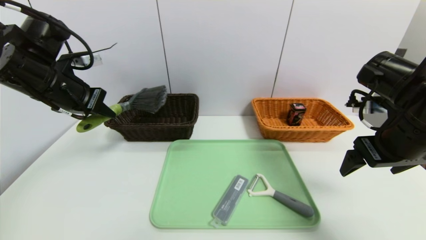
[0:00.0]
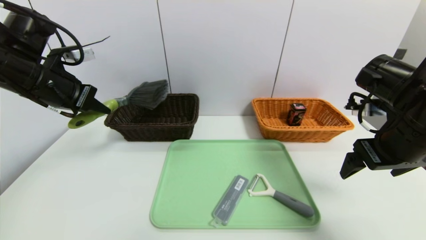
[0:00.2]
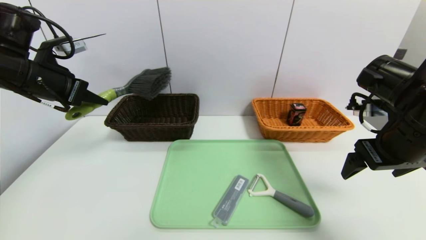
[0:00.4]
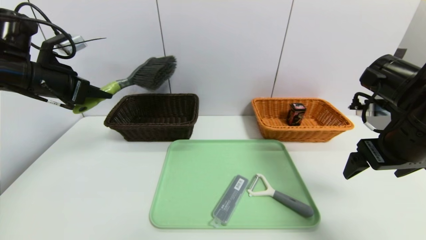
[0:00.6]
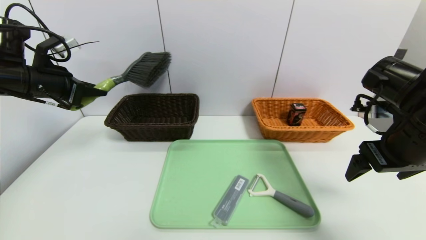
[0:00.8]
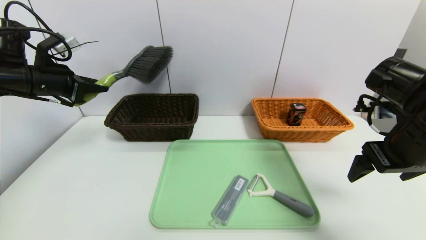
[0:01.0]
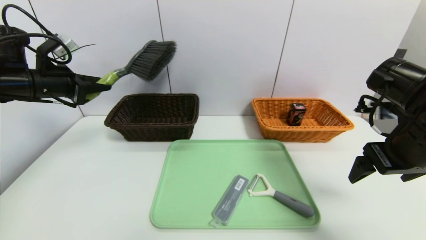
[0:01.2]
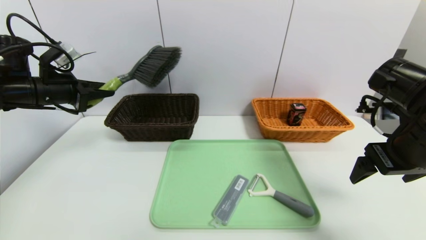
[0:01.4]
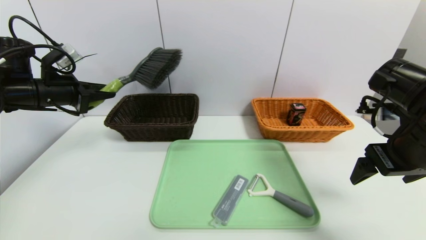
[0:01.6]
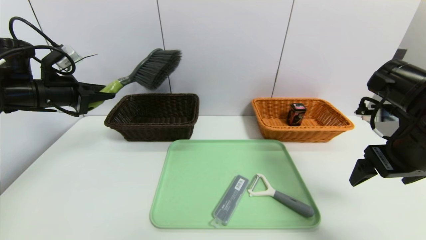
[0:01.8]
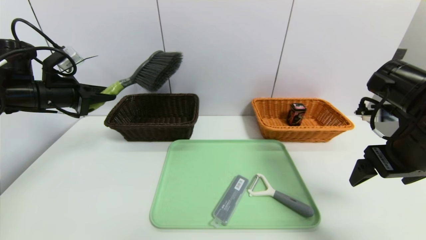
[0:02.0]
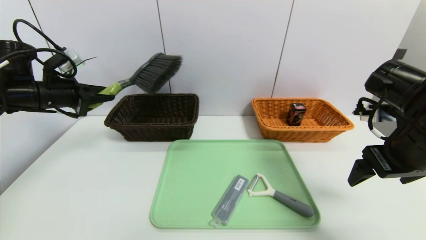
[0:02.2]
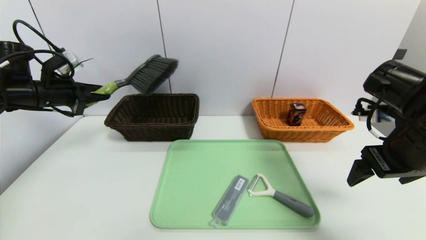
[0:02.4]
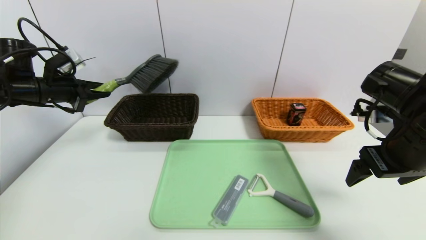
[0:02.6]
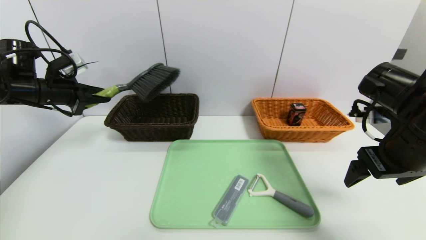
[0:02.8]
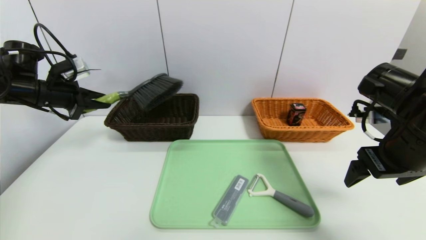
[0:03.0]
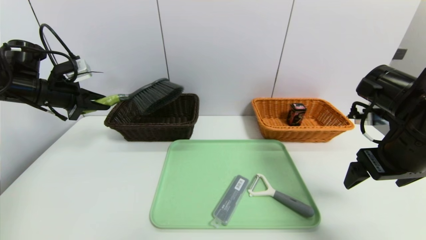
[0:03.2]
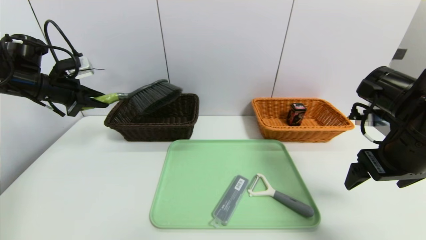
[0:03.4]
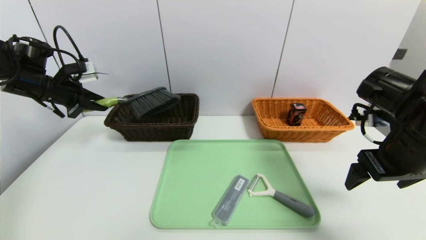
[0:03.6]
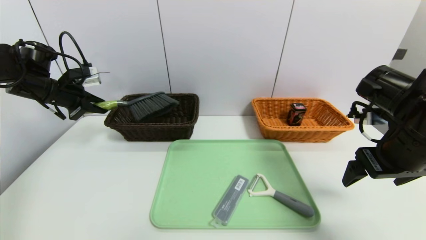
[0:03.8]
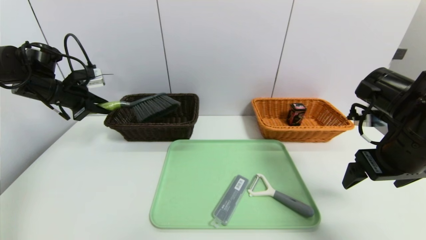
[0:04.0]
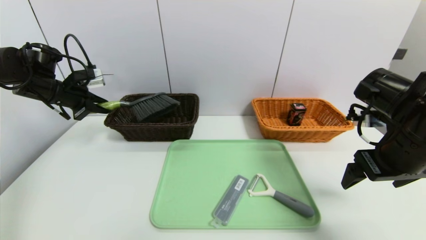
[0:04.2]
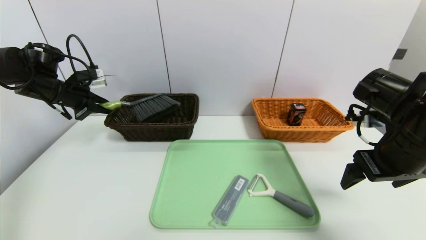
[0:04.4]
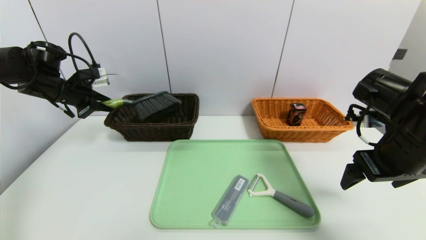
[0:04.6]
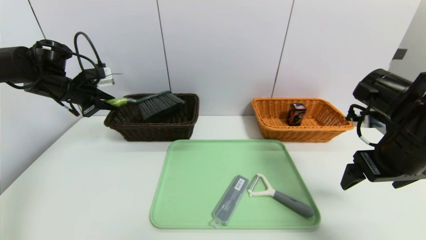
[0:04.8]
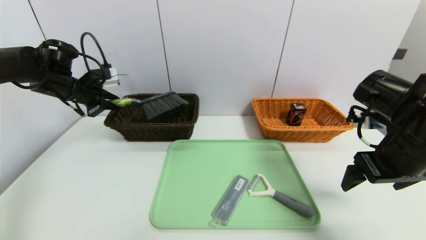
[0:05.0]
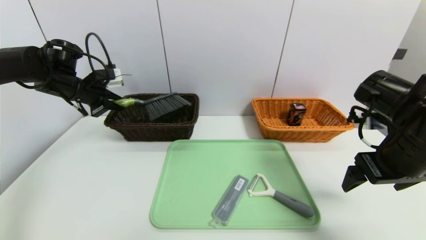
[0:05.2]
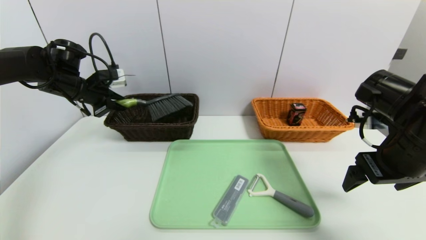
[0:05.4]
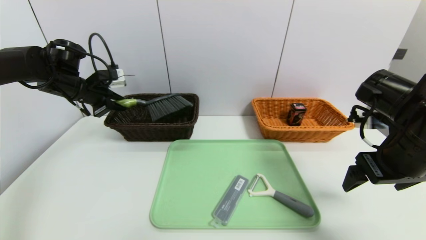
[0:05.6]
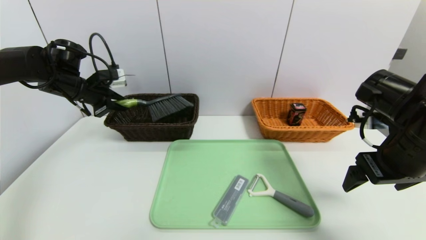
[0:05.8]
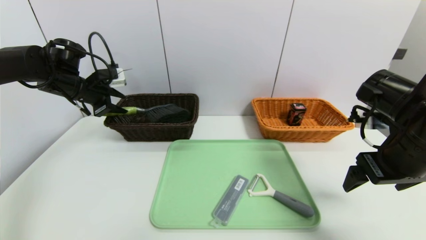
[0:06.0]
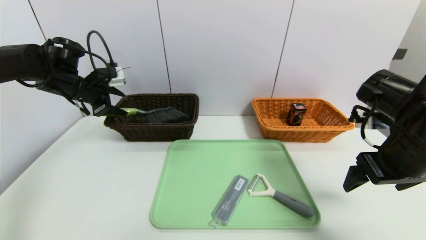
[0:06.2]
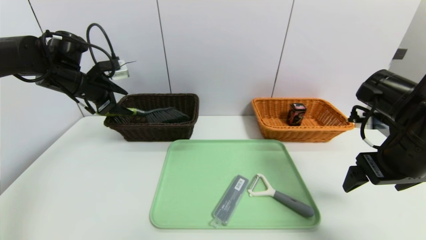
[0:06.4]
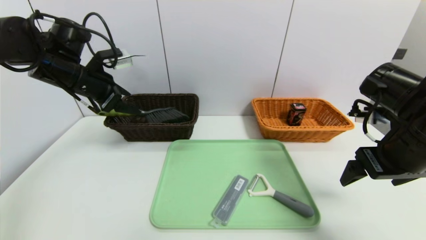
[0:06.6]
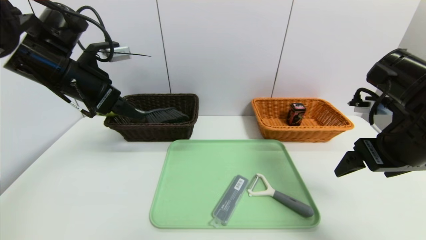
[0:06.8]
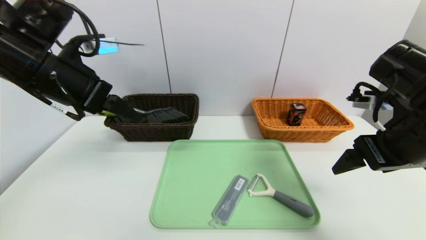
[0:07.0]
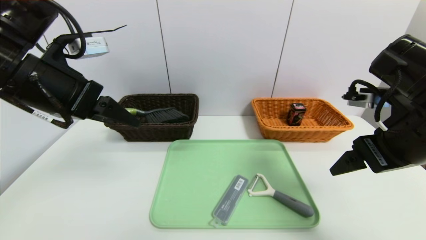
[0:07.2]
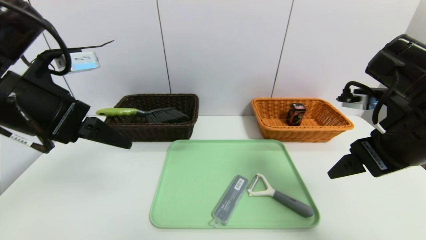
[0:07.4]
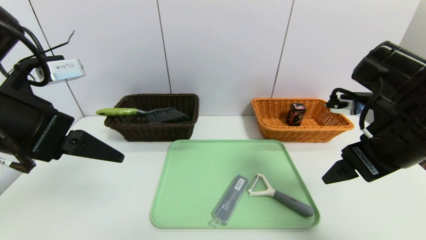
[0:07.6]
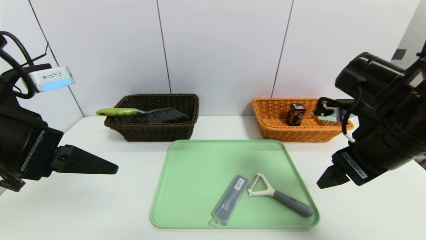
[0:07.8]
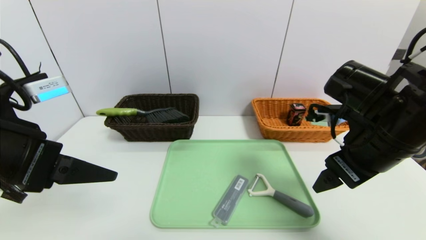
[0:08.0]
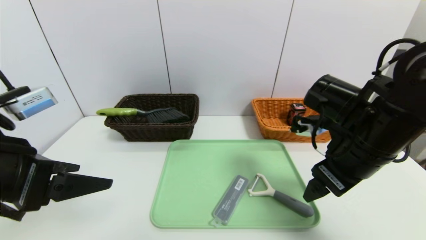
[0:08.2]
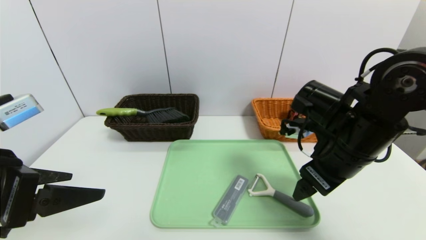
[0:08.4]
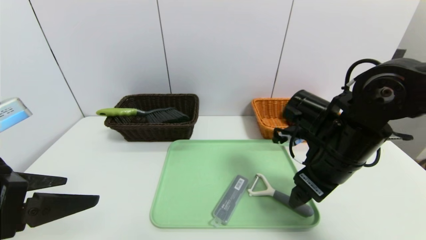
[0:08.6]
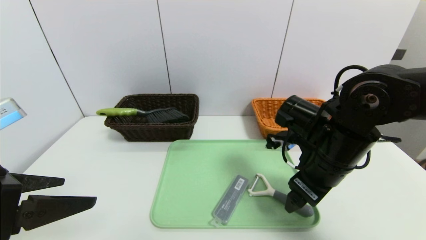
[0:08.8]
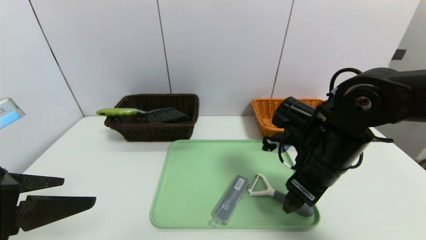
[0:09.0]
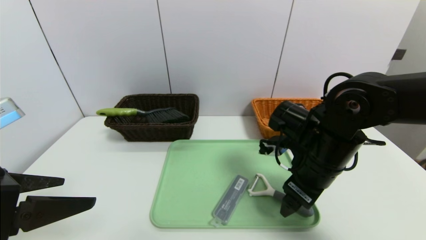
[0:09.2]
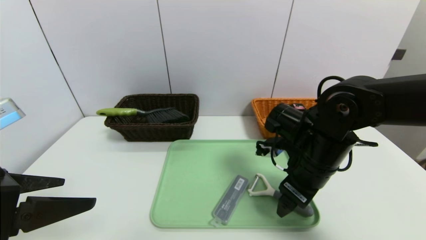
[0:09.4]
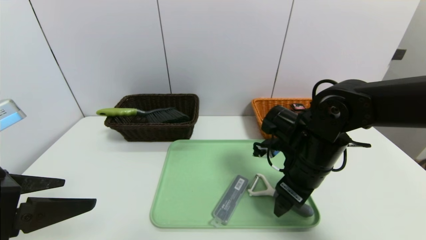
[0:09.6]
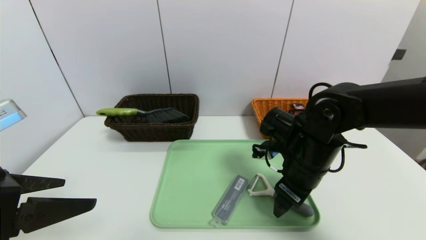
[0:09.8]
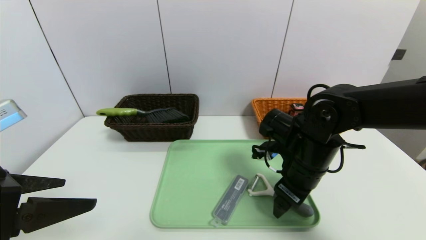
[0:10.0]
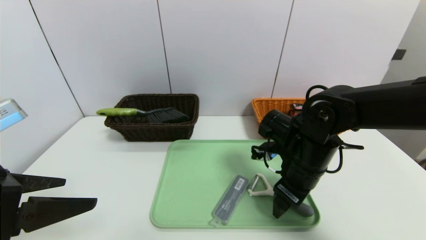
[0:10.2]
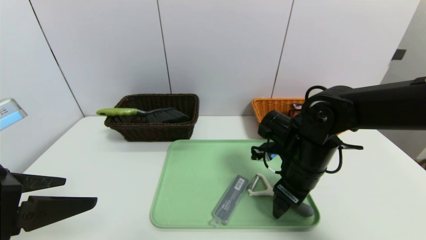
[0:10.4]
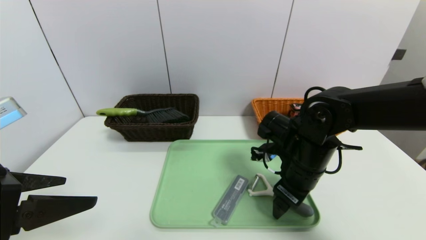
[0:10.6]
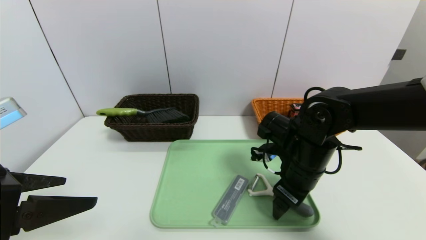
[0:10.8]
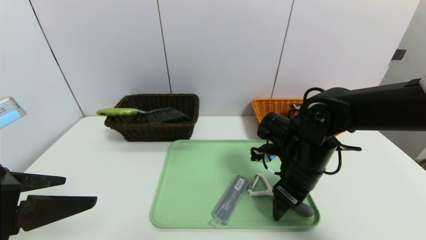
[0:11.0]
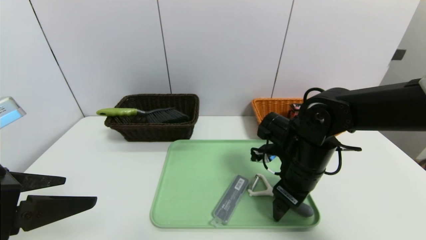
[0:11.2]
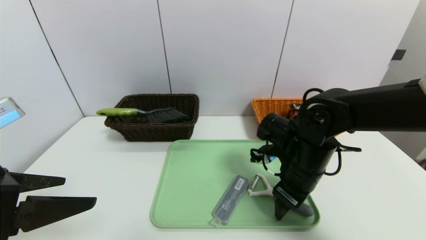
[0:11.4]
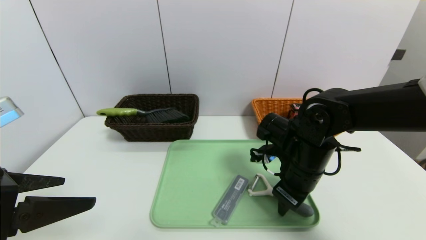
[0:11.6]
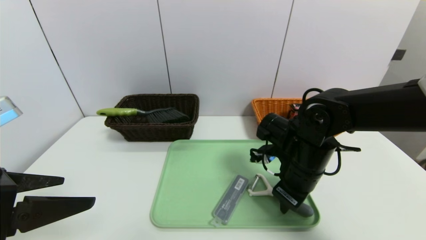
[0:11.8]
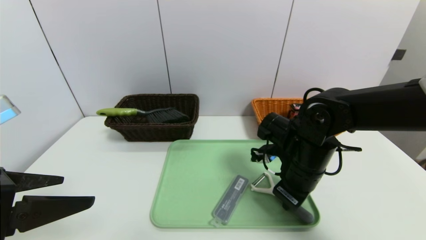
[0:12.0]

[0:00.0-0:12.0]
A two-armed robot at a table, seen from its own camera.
Task of the whole recording: place the food in the right basket with the right gripper, and place the non food items in the left basket with the left gripper.
Step, 0:00.0 to 0:06.6: Grasp the brush and put it in the left basket.
0:00.0 to 0:01.6: The left gripper heads to the left, covering approximately 5 cm.
0:01.6 to 0:03.0: The grippers make only small movements.
0:03.0 to 0:04.4: The grippers move only a little.
0:04.4 to 0:06.0: The left gripper opens up.
0:06.0 to 0:07.6: The left gripper is displaced backward by some 25 cm, and opens. Meanwhile the right gripper shifts by about 5 cm.
0:07.6 to 0:09.0: The right gripper moves downward and to the left, roughly 10 cm. The left gripper shifts some 10 cm backward.
0:09.0 to 0:10.4: The grippers make only small movements.
0:10.4 to 0:12.0: The right gripper closes.

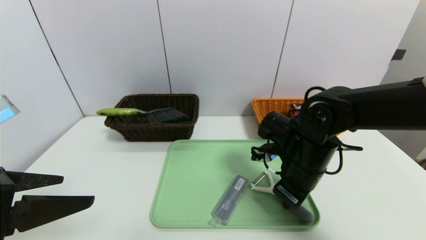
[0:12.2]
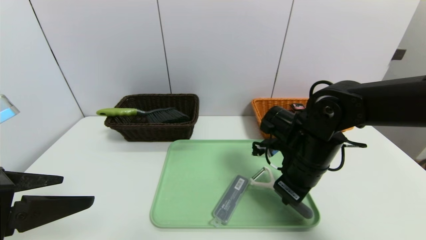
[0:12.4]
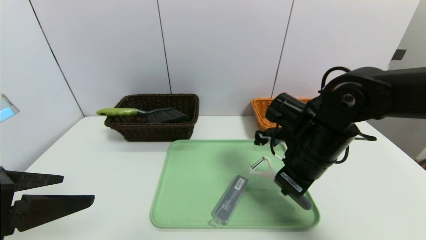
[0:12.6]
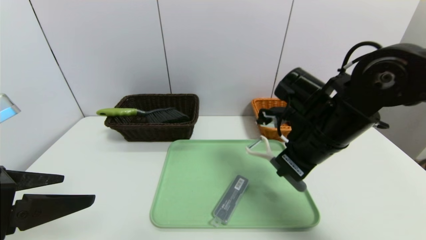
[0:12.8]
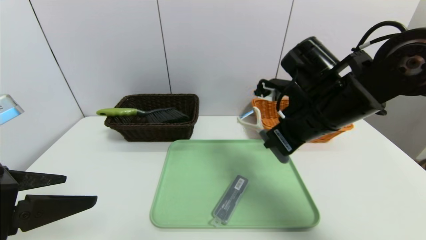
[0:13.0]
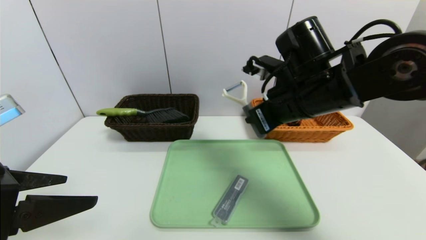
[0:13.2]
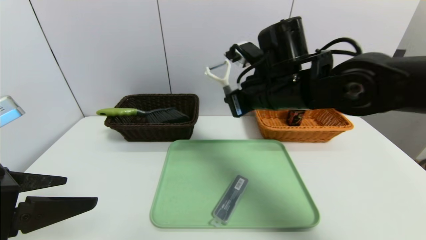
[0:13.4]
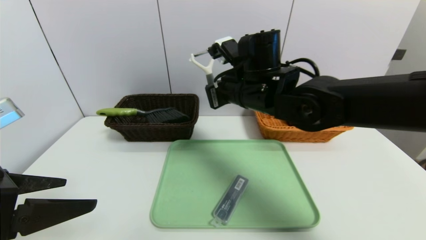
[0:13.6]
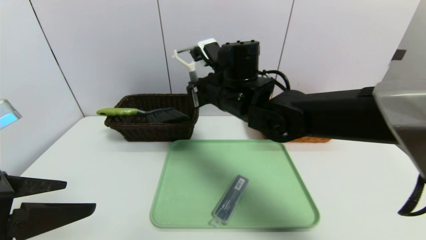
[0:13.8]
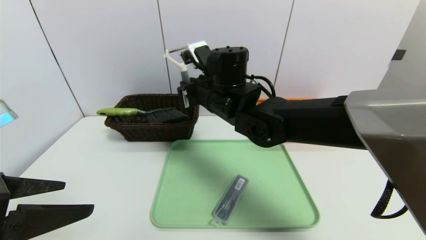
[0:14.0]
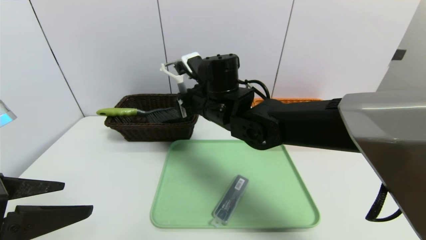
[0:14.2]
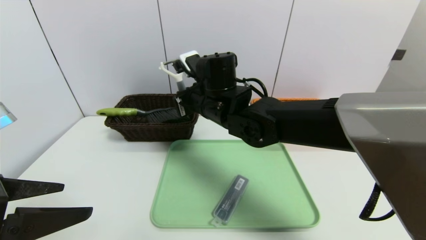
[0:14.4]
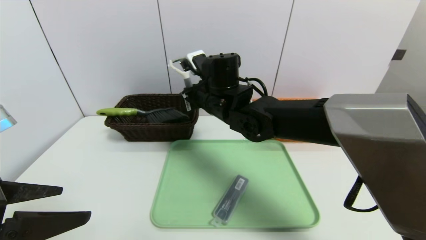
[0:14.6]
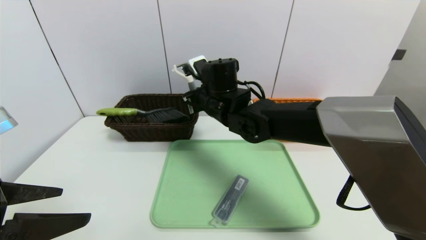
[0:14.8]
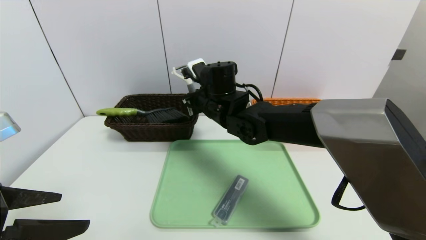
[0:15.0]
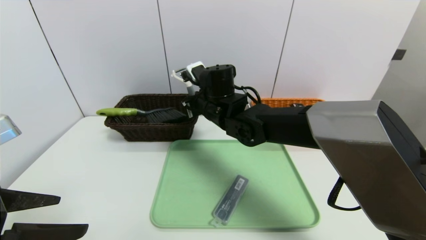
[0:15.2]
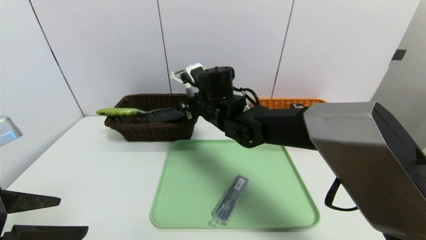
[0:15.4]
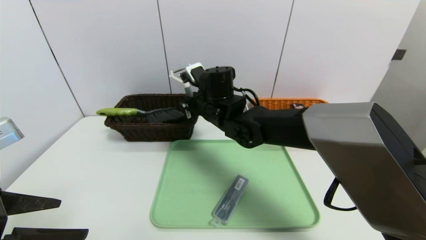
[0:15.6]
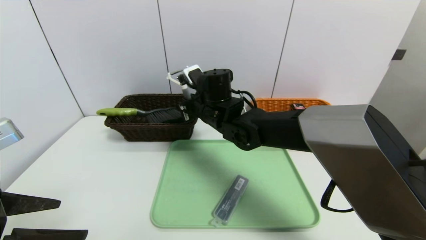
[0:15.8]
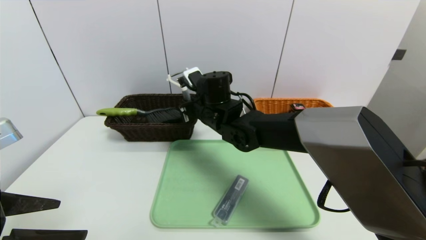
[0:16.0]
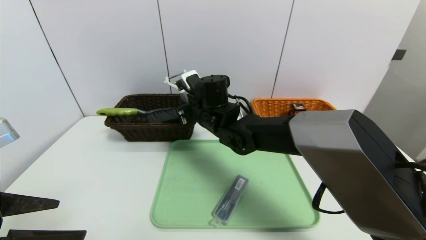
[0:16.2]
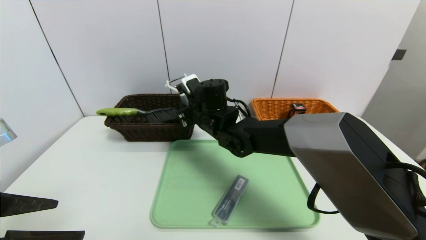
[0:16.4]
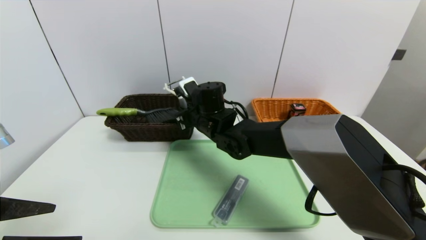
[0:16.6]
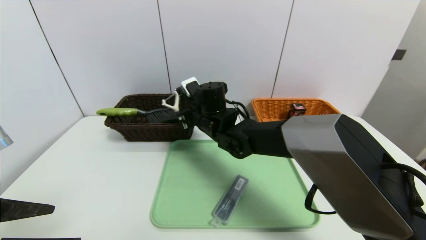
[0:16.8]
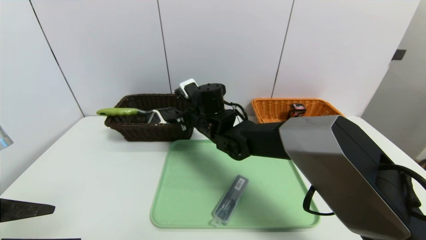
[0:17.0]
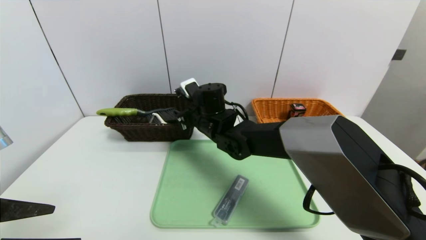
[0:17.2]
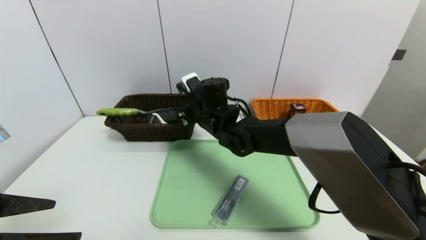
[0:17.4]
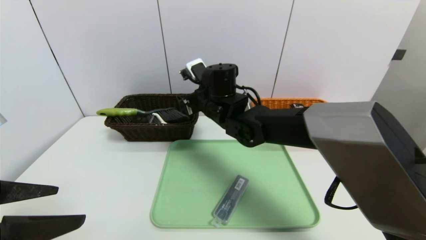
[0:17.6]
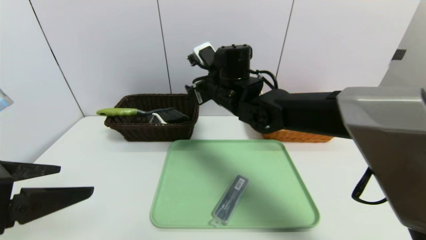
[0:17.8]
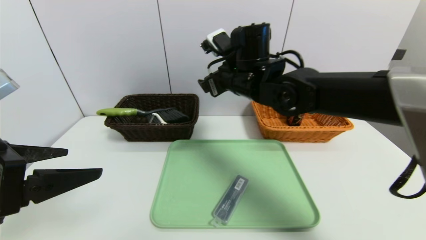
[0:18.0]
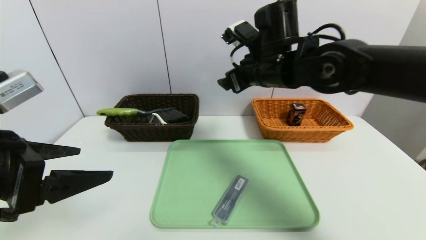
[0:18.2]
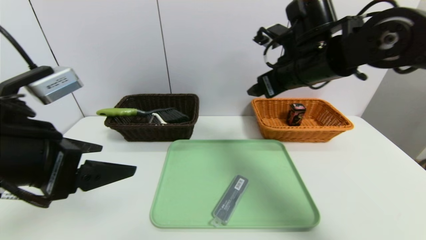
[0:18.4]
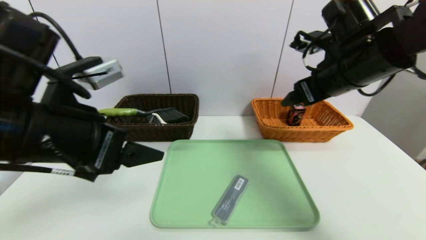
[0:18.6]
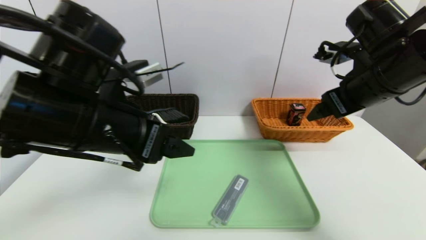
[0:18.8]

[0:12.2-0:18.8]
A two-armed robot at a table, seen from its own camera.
Task of the whole recording: place the food in the right basket with the right gripper, and place the non food items in the left basket with the left gripper.
0:12.2 to 0:13.8: The right gripper is displaced to the left, upward and forward by about 20 cm.
0:13.8 to 0:15.4: The right gripper ends up about 5 cm from where it was.
0:15.4 to 0:17.2: The right gripper opens up.
0:17.2 to 0:18.8: The left gripper is displaced to the right and forward by approximately 20 cm, while the right gripper travels to the right, upward and backward by roughly 30 cm.
